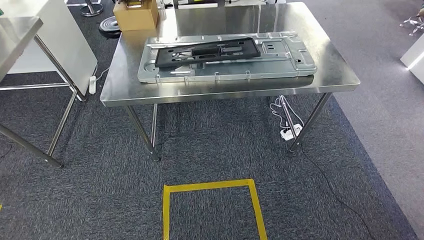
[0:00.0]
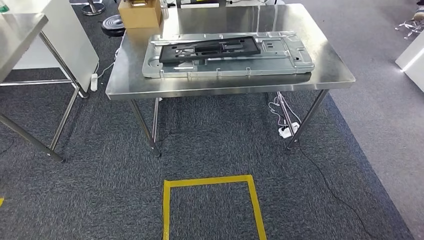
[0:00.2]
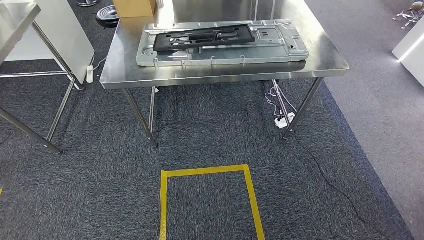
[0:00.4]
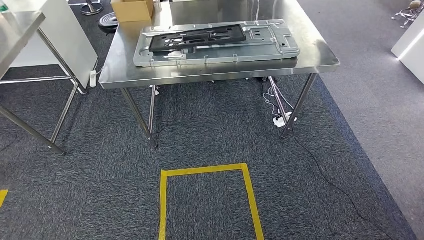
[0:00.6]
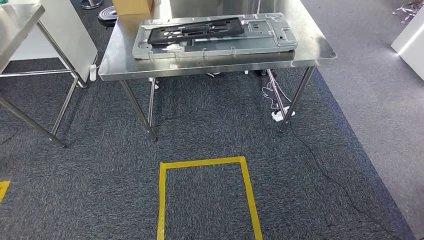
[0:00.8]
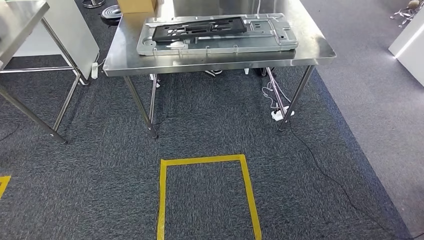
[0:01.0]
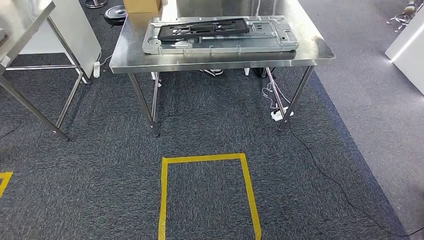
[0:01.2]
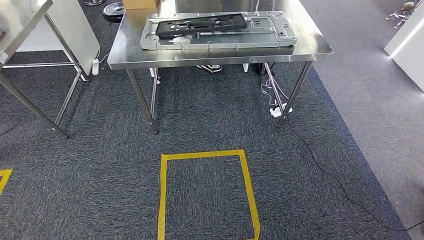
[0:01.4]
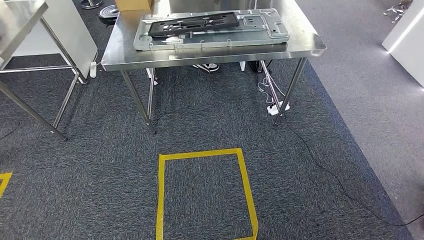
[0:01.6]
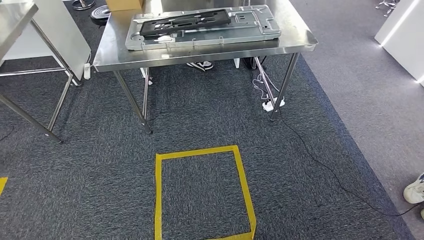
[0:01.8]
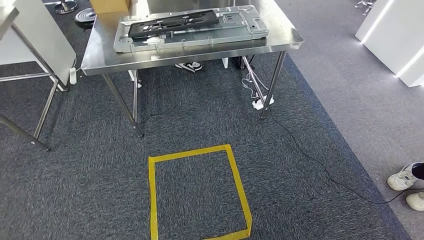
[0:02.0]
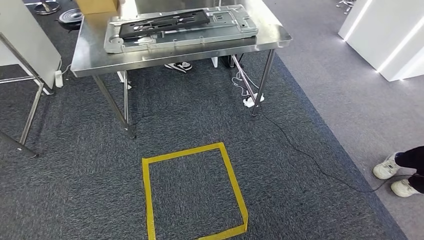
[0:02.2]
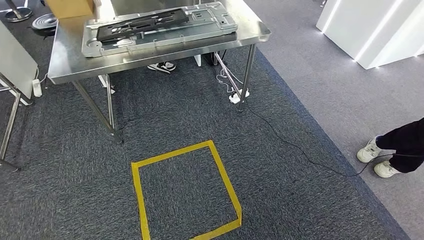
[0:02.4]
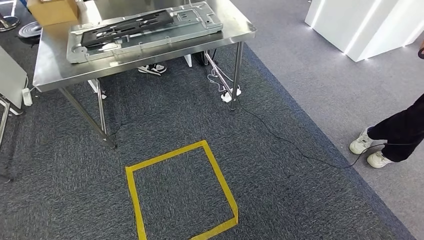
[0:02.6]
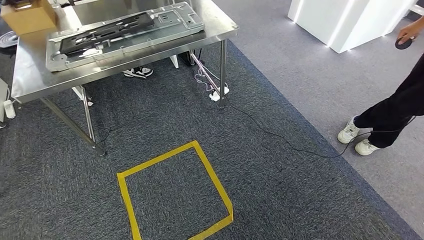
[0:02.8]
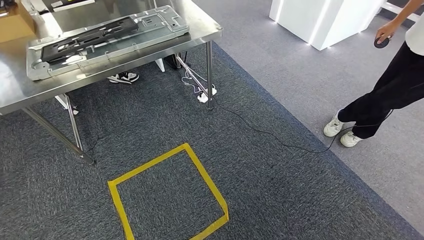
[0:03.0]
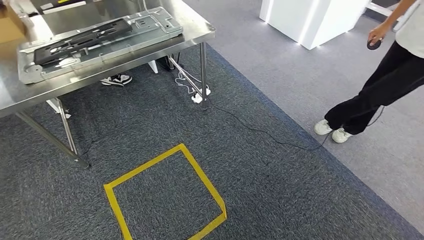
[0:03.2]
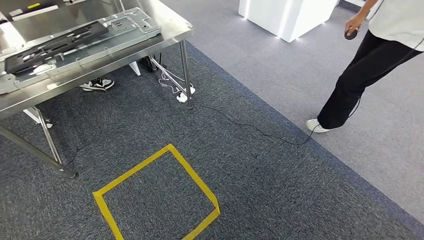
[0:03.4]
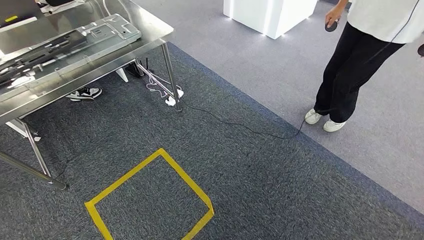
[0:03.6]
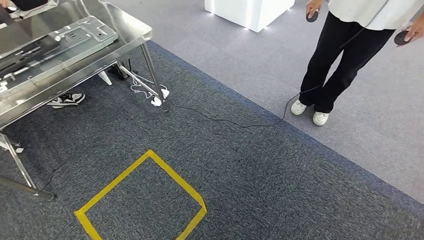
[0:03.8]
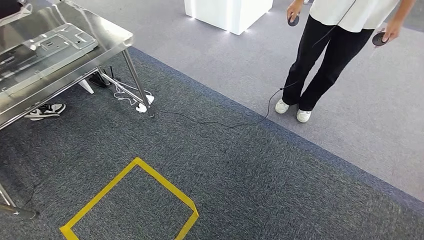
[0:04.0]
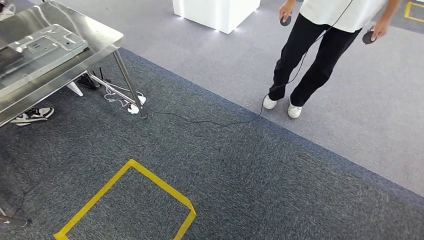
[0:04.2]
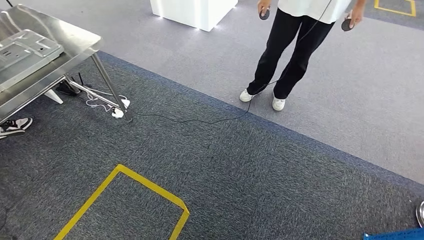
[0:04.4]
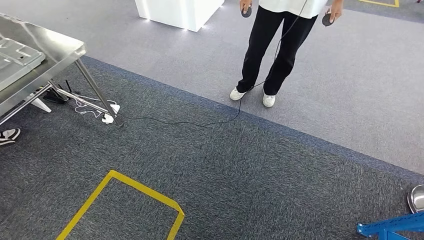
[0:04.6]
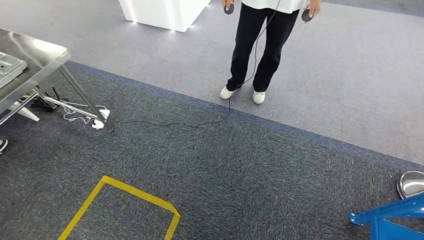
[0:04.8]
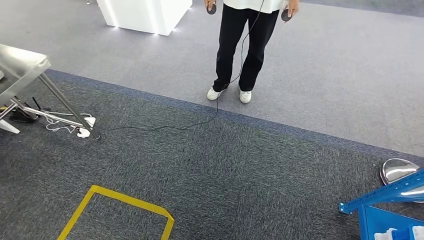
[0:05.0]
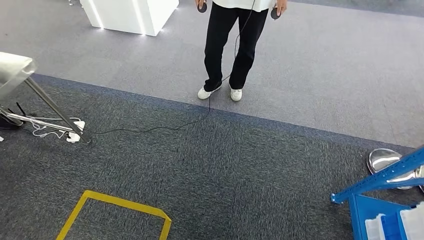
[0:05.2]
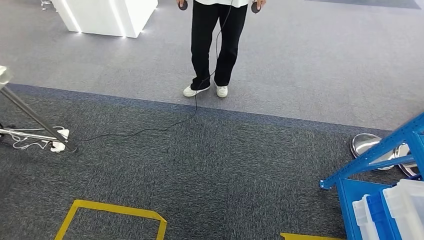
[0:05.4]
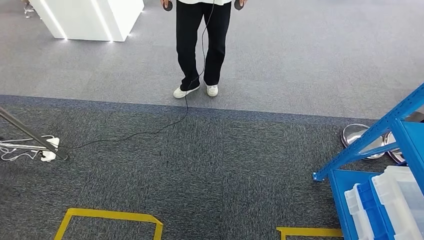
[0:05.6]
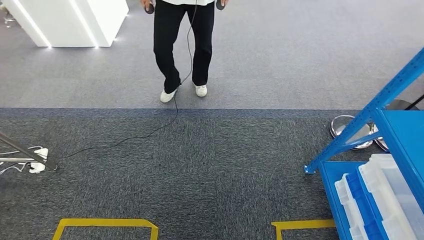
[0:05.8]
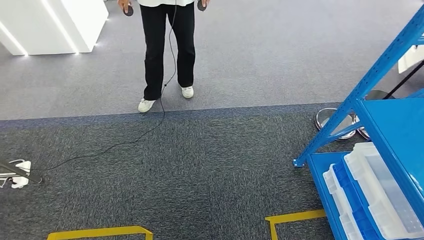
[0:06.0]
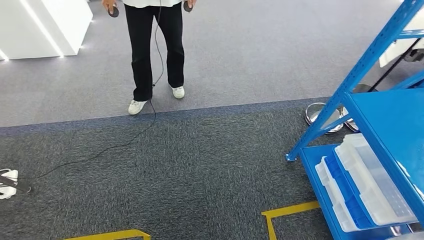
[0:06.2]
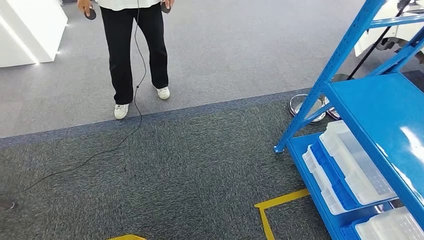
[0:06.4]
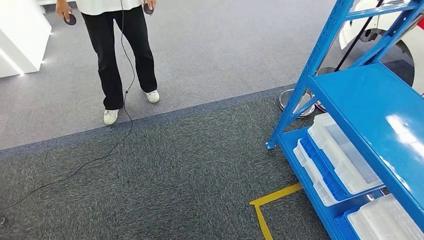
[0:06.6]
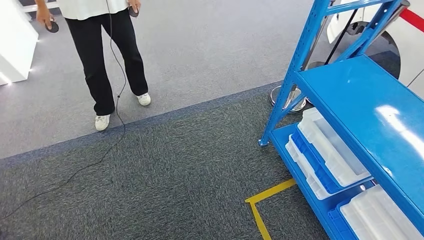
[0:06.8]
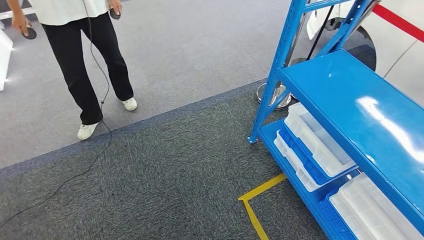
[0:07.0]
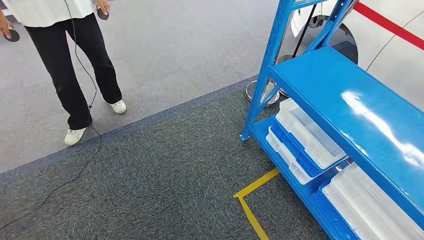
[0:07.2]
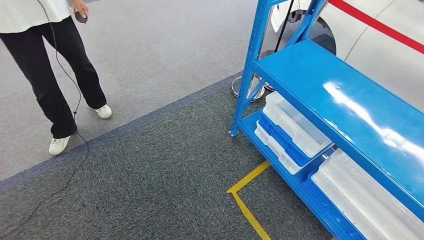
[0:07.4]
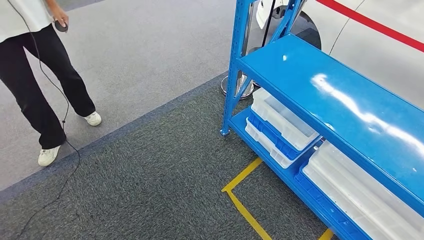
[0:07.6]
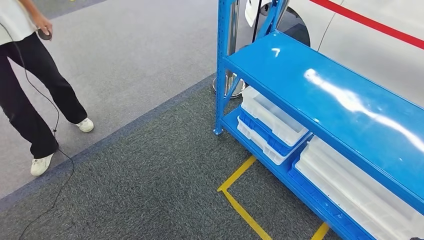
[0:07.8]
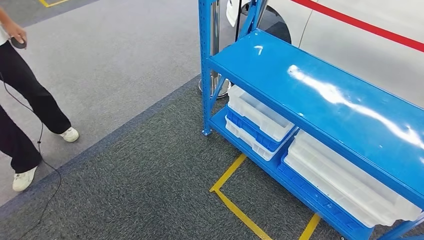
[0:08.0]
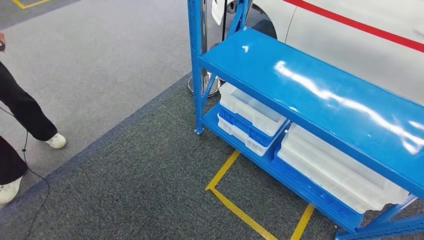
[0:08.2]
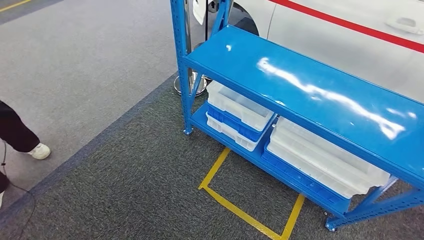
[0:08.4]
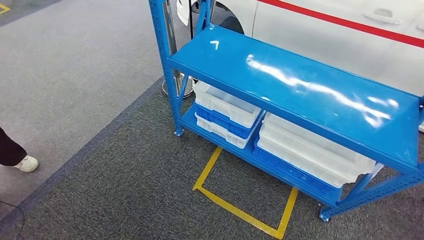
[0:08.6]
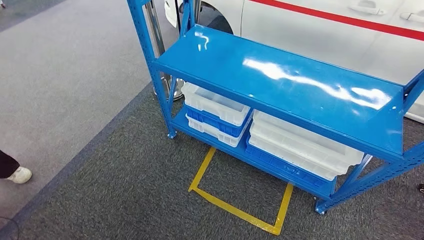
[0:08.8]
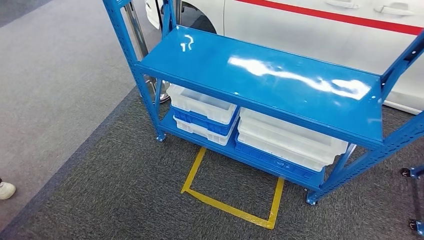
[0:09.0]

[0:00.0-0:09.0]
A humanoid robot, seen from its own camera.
Step, 0:00.0 to 0:09.0: Move to the initial position of the shelf.
